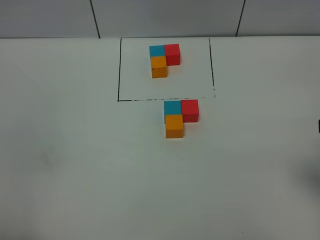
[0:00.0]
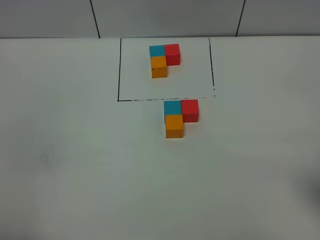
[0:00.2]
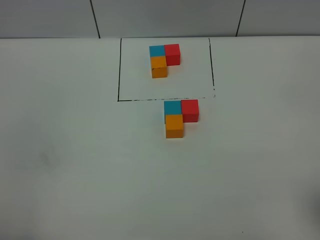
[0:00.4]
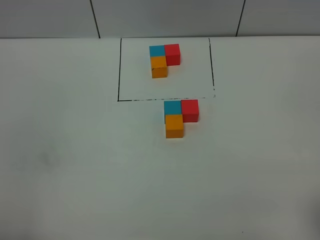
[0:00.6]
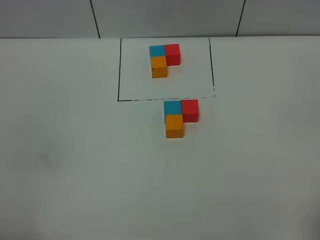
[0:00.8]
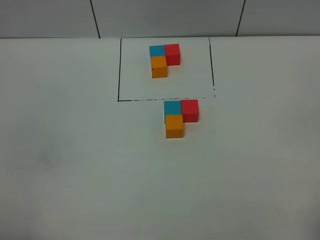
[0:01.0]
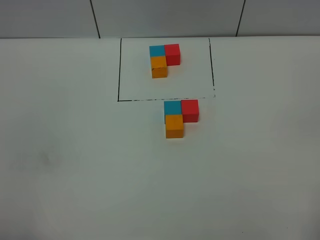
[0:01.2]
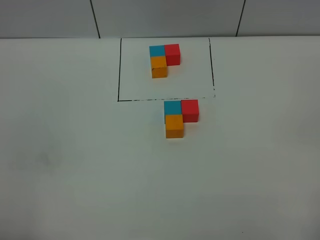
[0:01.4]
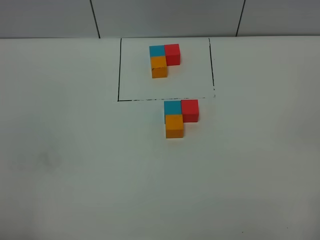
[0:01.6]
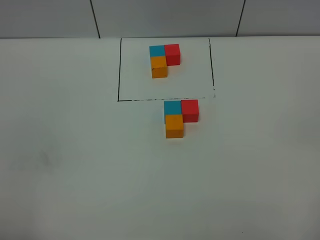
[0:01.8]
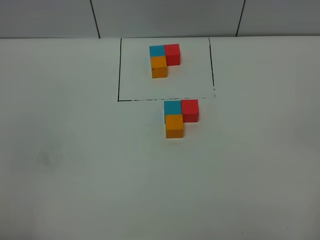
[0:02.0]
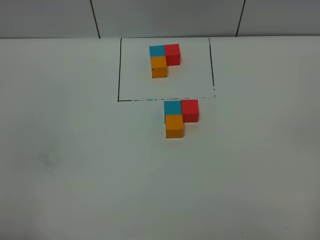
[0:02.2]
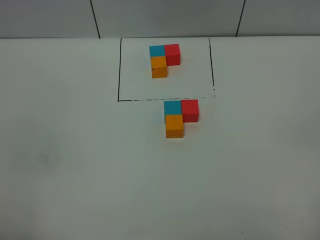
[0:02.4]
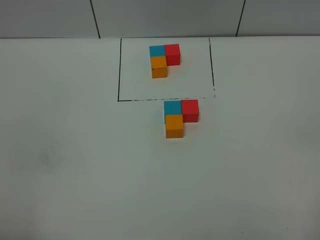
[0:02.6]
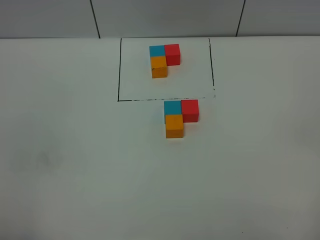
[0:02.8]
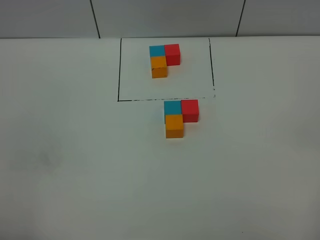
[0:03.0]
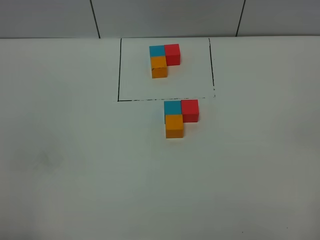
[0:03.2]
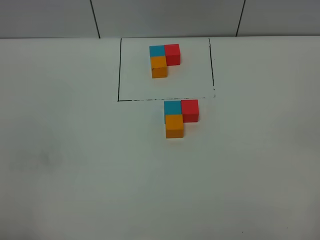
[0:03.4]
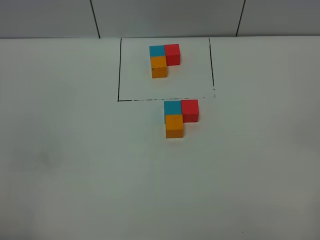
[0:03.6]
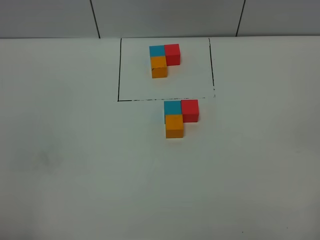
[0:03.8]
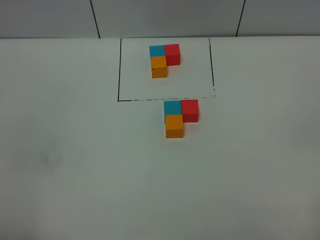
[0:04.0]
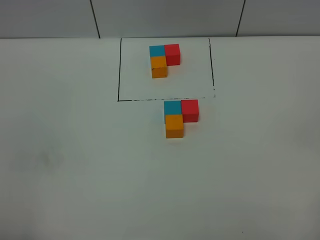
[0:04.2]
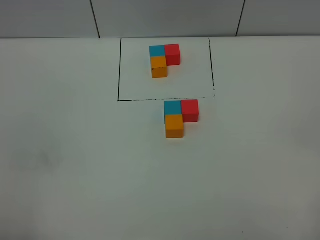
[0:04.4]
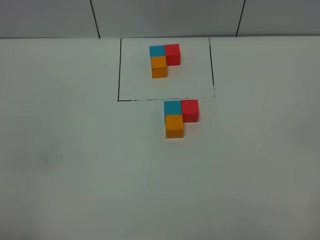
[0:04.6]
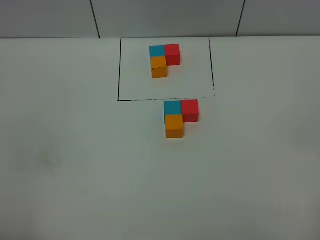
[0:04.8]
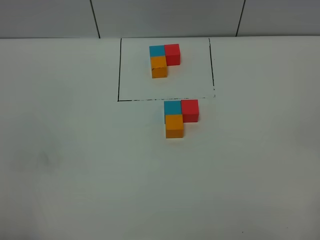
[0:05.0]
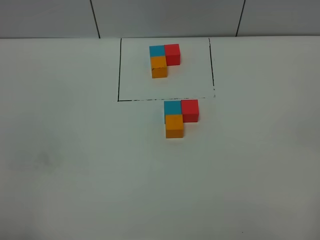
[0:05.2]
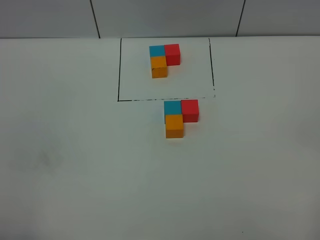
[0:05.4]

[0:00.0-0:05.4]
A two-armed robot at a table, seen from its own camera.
Task of the whole recording: According to the building block template in front, assemble the scattered blocks together.
0:02.8 to 0:05.4: The two grippers keep their place.

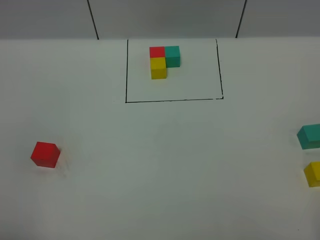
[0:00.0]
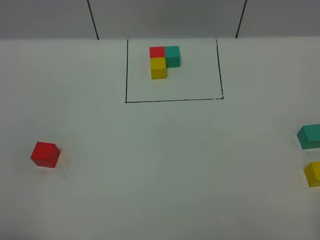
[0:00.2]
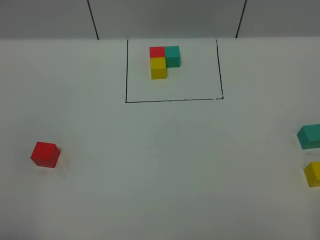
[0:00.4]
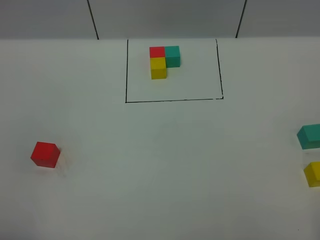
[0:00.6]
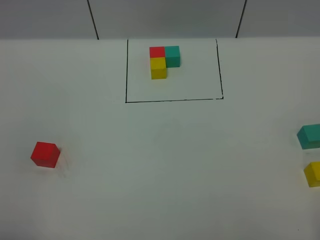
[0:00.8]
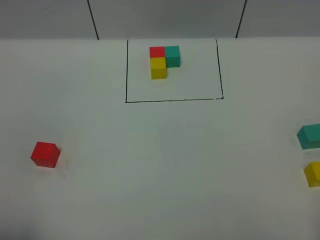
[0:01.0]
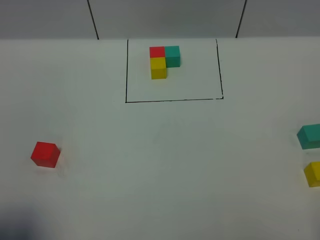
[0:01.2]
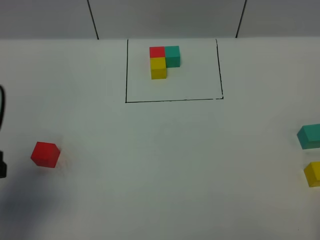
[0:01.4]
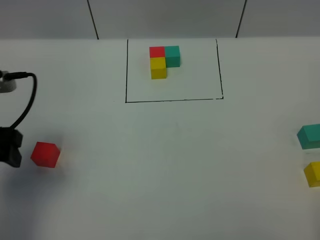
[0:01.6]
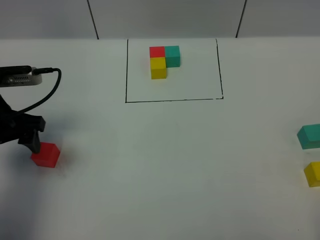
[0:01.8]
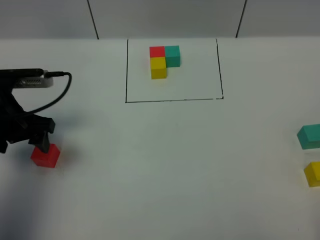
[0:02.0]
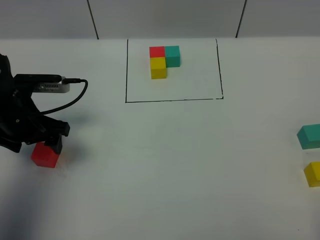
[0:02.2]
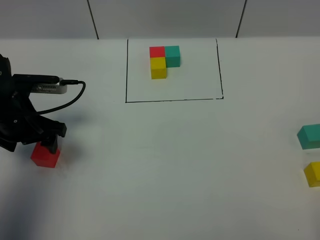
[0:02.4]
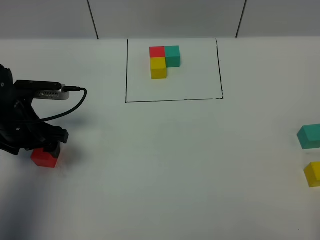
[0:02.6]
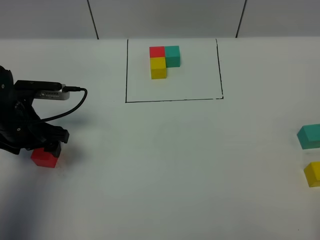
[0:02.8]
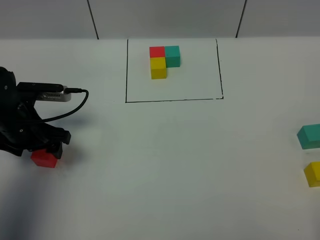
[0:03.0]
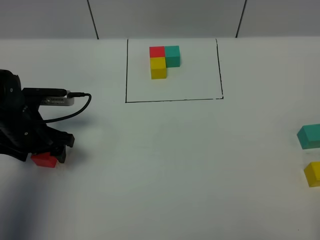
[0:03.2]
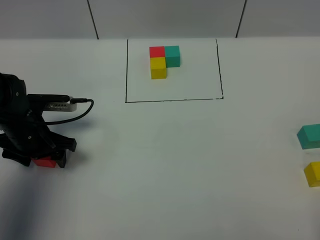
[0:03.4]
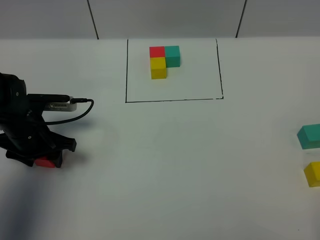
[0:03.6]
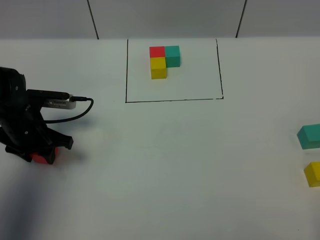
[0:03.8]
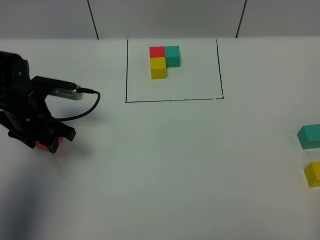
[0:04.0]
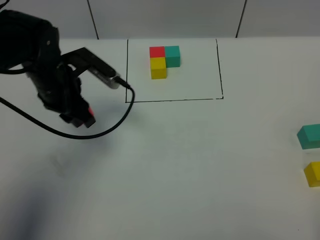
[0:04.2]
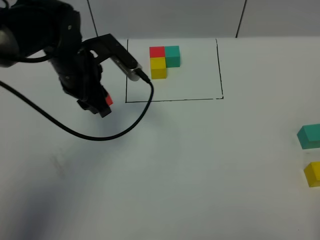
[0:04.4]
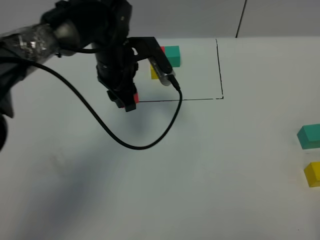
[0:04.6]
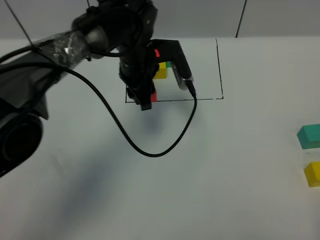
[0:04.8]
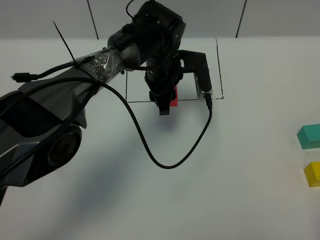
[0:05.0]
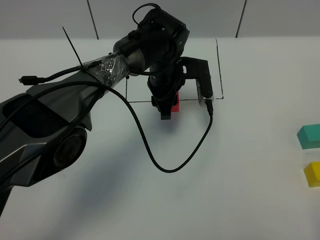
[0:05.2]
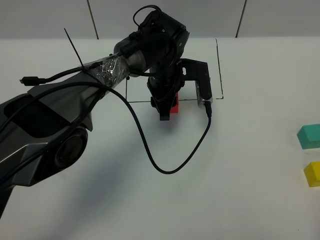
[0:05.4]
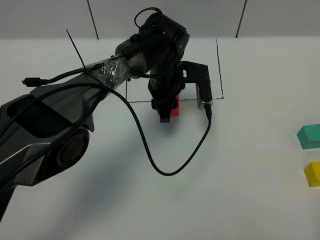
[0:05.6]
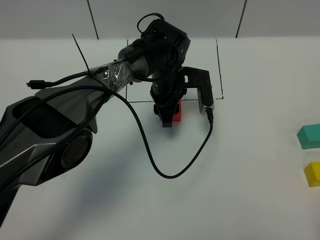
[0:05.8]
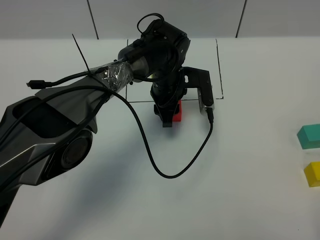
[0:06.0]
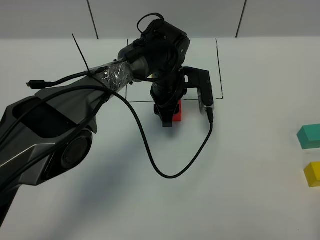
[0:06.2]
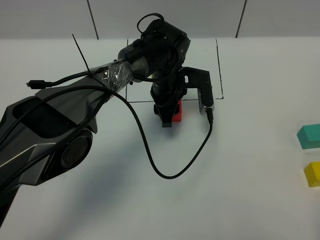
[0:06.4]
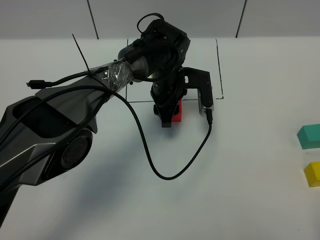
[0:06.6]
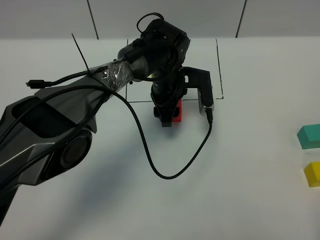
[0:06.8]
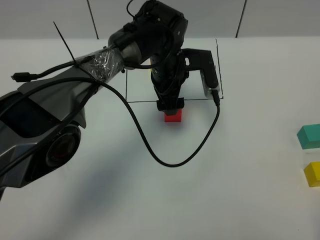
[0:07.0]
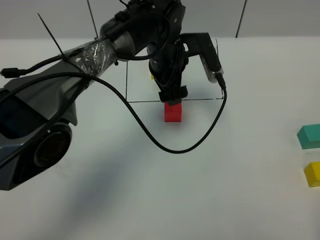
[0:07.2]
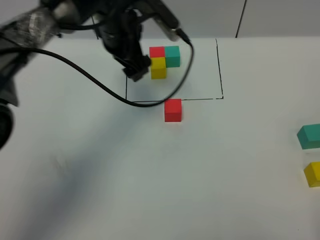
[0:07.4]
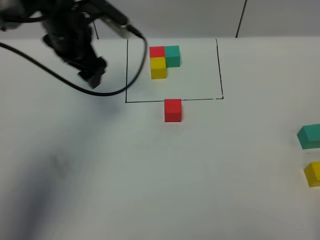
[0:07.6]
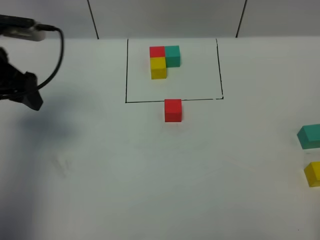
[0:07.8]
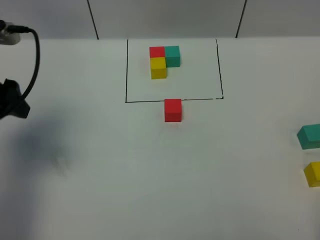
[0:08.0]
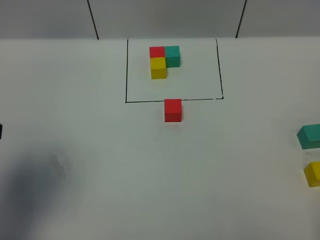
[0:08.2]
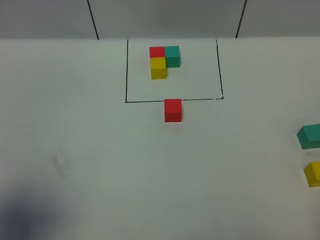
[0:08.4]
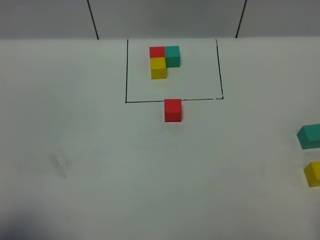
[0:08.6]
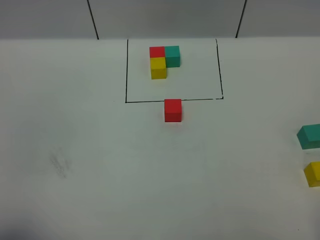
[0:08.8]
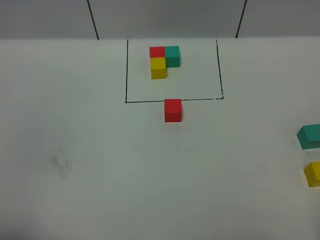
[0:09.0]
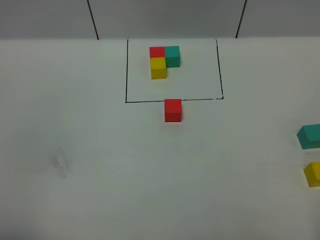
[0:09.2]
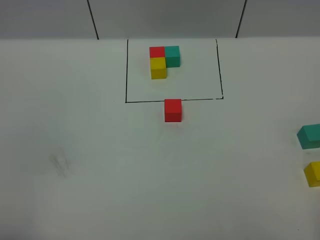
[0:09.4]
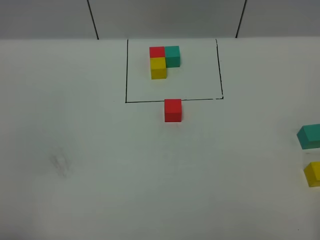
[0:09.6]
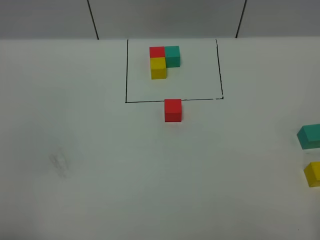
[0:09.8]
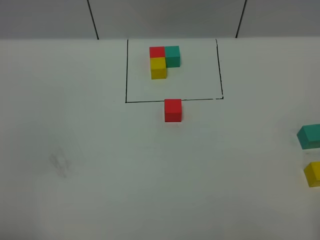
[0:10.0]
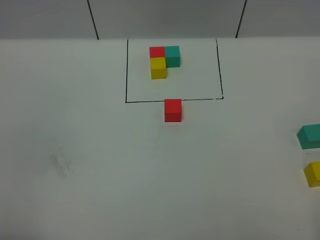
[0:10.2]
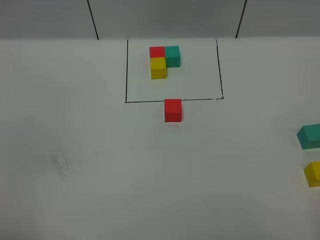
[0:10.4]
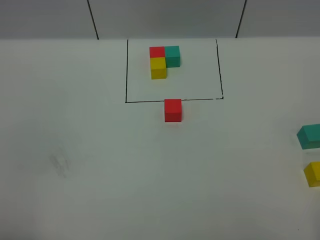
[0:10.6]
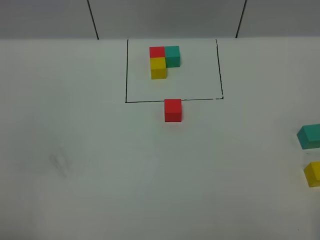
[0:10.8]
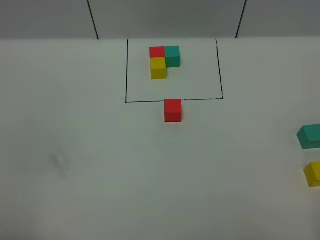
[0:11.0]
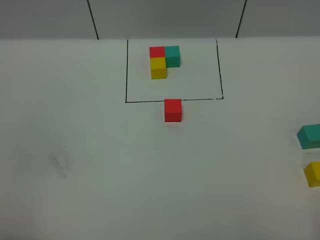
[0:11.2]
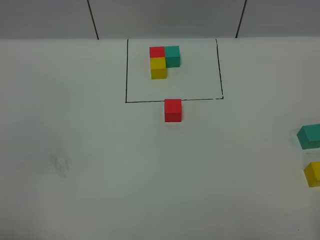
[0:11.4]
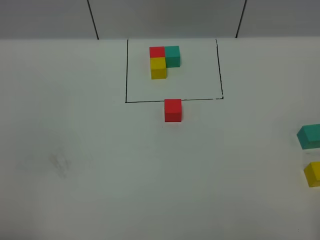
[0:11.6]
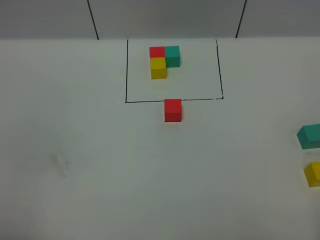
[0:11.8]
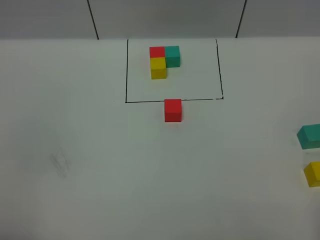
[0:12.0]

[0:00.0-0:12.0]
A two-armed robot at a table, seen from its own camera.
Task of the whole recording: According to the building block template in front, assemble the scattered blocks together.
Step, 0:00.0 to 0:06.8: Put the red build block in the center of the table.
0:00.0 to 0:01.6: The left gripper heads forward, covering roughly 25 cm.
0:01.6 to 0:03.0: The left gripper travels downward and forward by approximately 15 cm.
0:03.0 to 0:04.4: The left gripper heads to the right, upward and forward, covering some 15 cm, and closes its fingers.
0:04.4 to 0:06.0: The left gripper shifts some 20 cm to the right and downward.
0:06.0 to 0:07.6: The left gripper shifts some 25 cm to the left and upward, and opens its fingers.
0:07.6 to 0:09.0: The left gripper shifts about 40 cm backward.

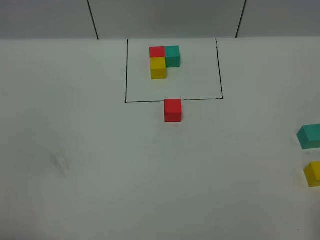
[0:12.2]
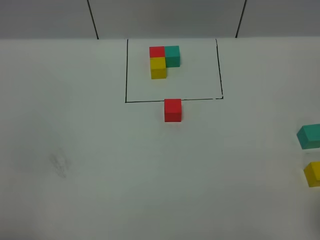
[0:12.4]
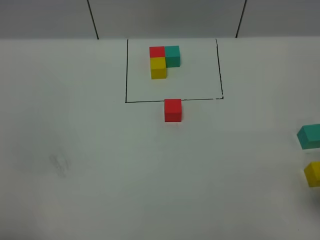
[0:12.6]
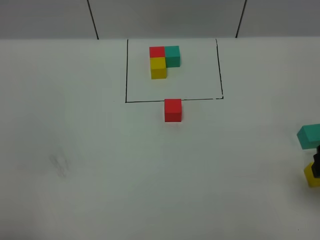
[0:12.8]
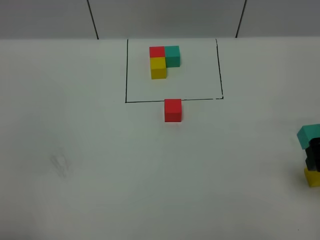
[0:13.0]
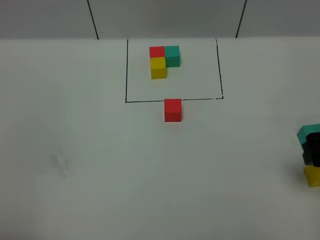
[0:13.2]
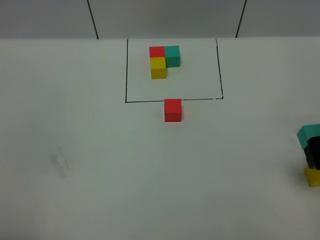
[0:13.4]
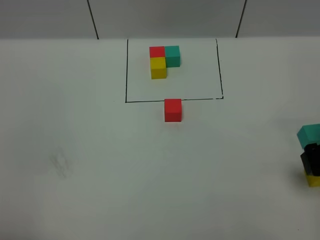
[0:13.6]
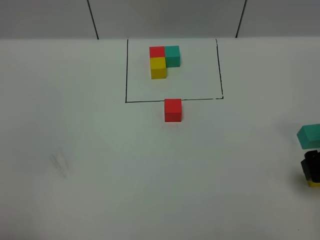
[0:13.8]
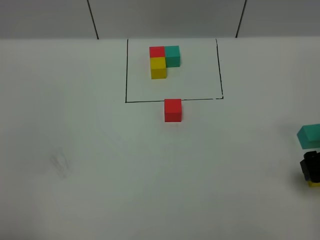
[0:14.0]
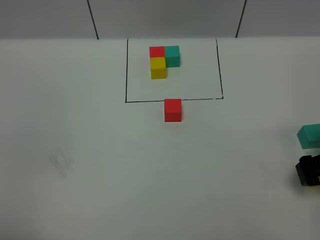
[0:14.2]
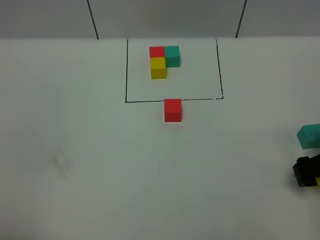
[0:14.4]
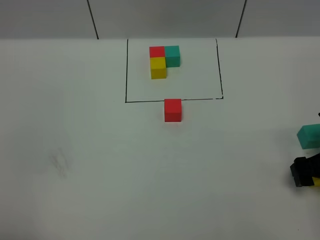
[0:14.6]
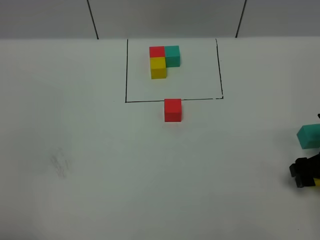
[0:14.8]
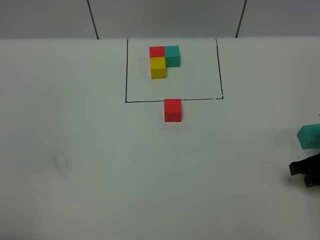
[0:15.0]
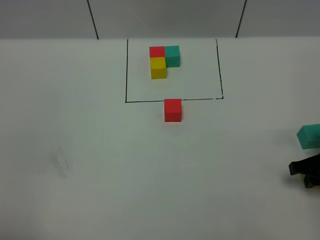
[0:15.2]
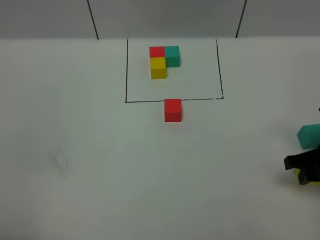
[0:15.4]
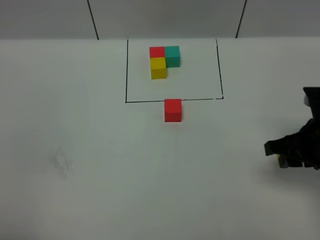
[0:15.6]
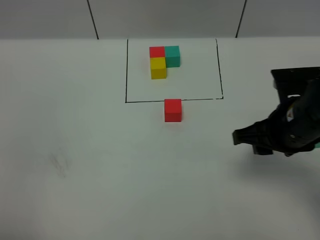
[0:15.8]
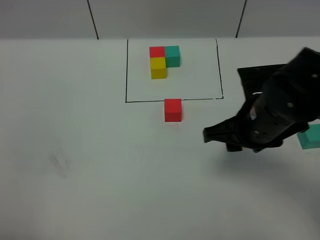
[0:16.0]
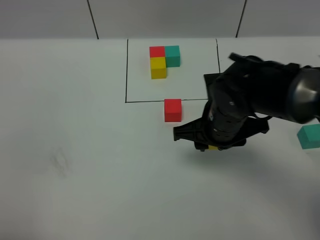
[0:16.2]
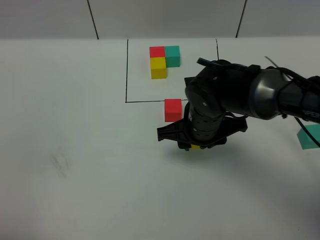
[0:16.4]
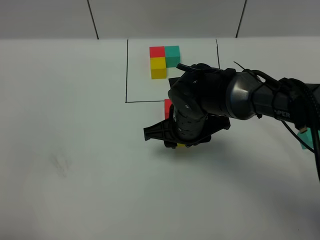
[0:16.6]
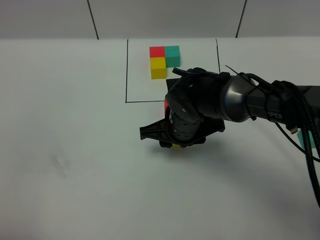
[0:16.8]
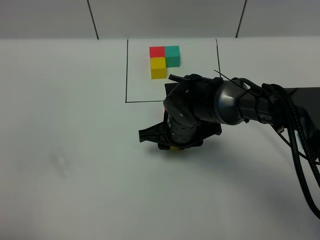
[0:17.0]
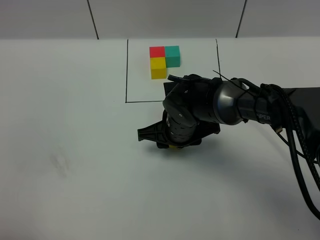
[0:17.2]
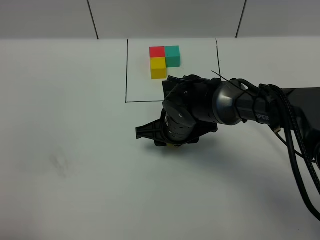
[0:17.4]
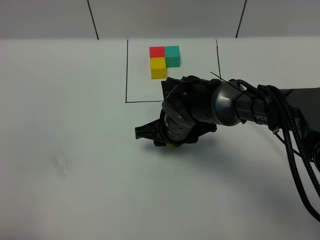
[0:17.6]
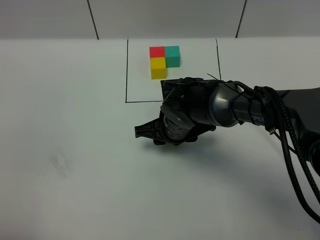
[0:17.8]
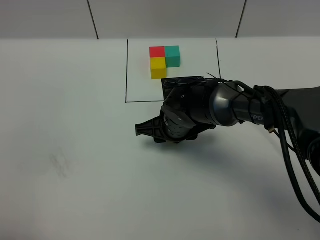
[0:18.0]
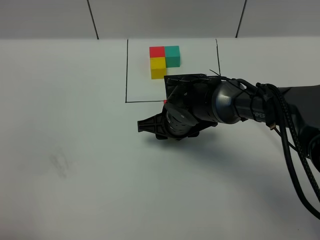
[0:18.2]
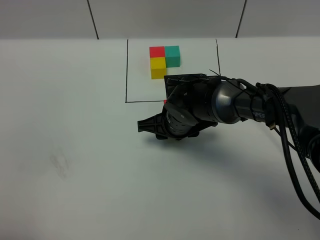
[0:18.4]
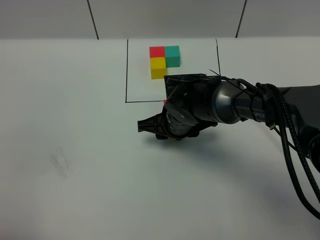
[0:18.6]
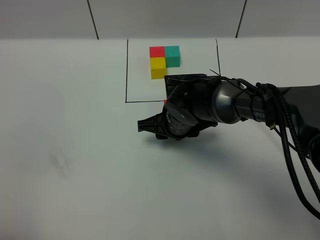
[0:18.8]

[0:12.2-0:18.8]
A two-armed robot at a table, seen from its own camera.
Task of the whole recording: According to the building block template in front, assemble the scattered blocks together.
0:12.2 to 0:13.8: The right gripper travels forward and downward by approximately 25 cm.
0:13.8 to 0:15.4: The right gripper closes its fingers.
0:15.4 to 0:17.2: The right gripper travels to the left by roughly 25 cm.
0:17.2 to 0:18.8: There are only small adjustments of the grippers.
